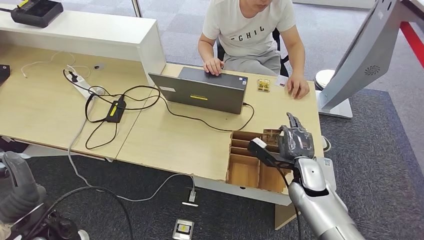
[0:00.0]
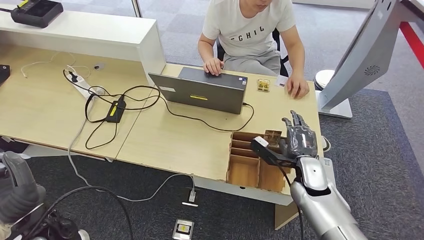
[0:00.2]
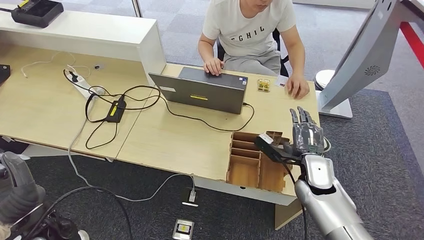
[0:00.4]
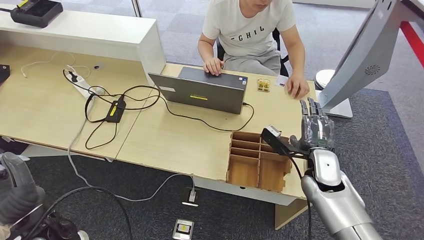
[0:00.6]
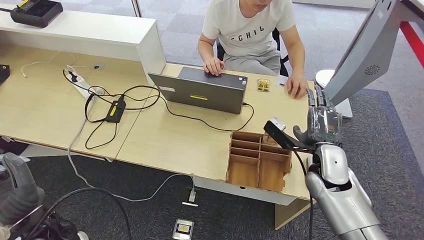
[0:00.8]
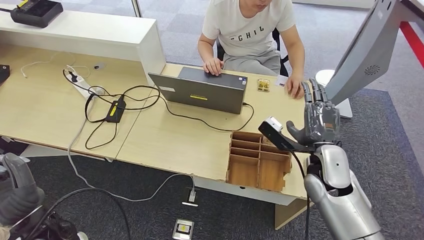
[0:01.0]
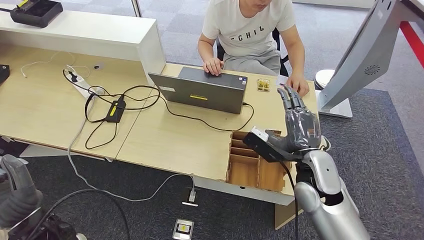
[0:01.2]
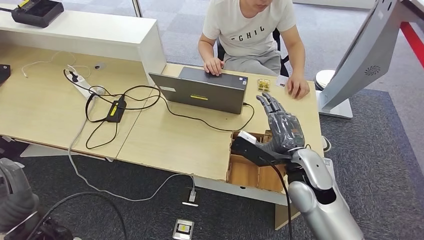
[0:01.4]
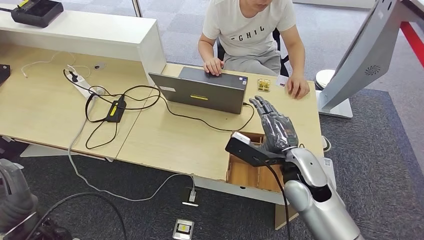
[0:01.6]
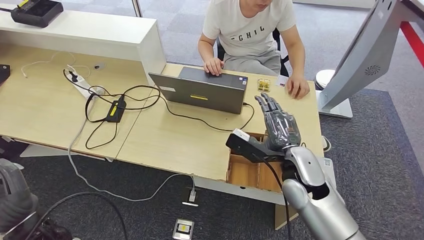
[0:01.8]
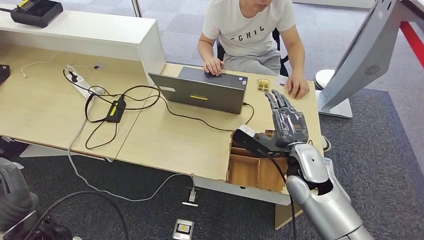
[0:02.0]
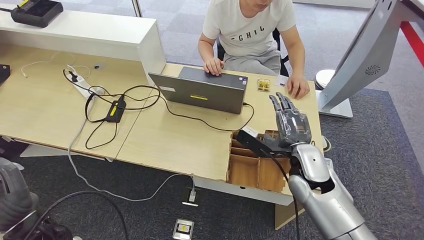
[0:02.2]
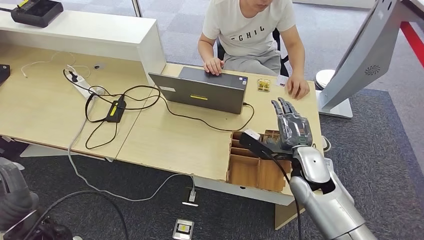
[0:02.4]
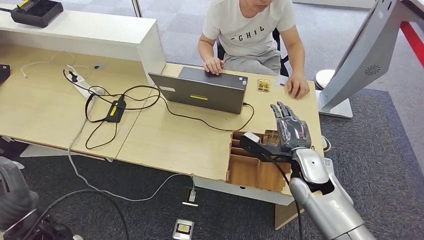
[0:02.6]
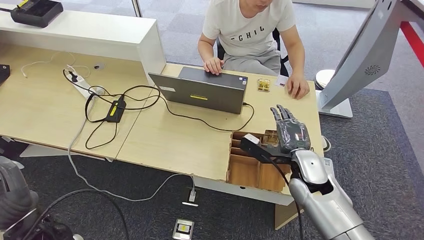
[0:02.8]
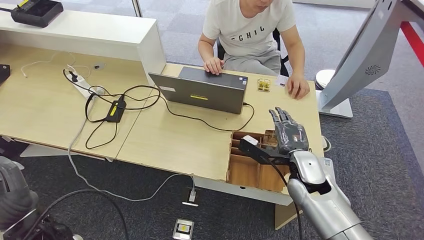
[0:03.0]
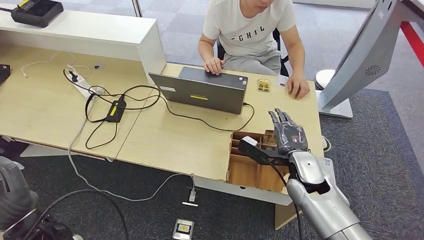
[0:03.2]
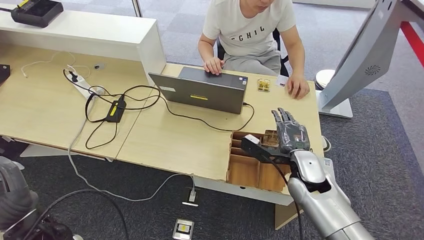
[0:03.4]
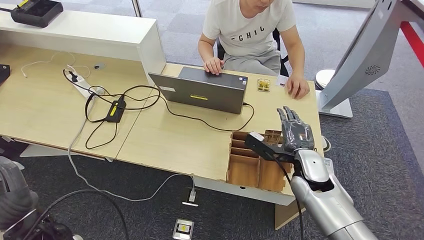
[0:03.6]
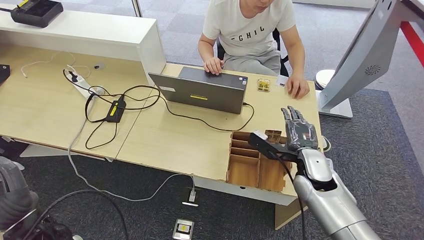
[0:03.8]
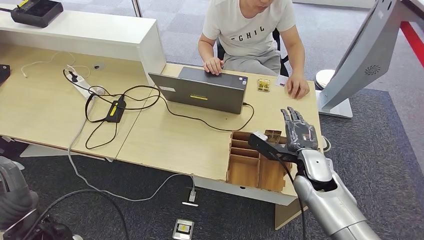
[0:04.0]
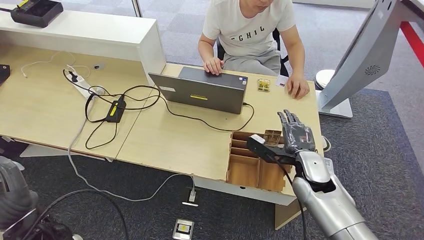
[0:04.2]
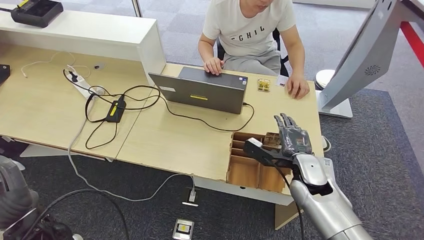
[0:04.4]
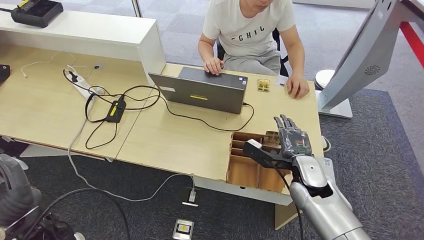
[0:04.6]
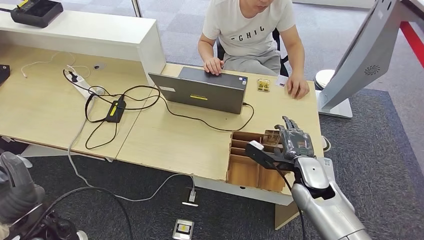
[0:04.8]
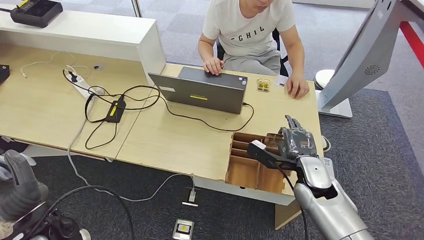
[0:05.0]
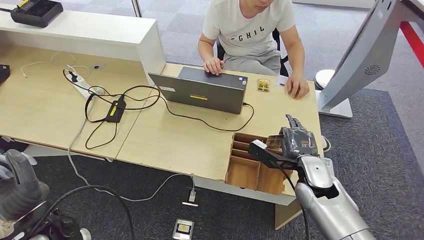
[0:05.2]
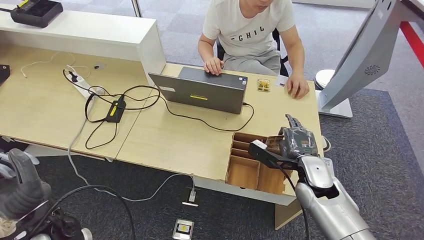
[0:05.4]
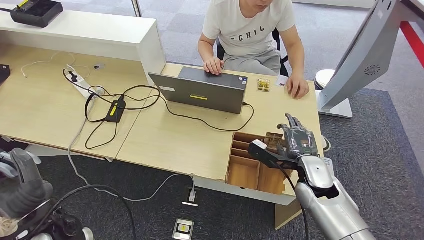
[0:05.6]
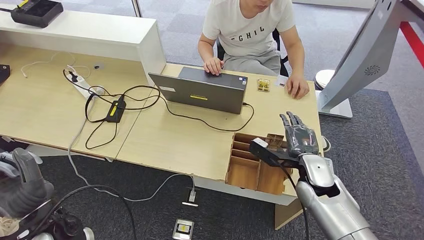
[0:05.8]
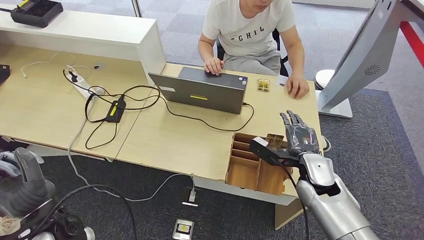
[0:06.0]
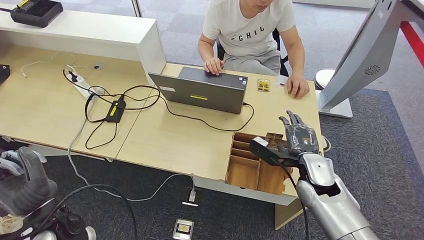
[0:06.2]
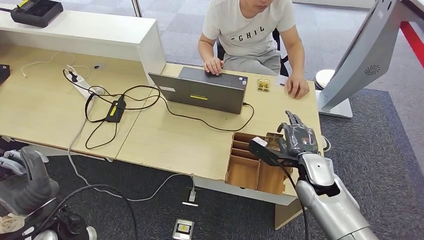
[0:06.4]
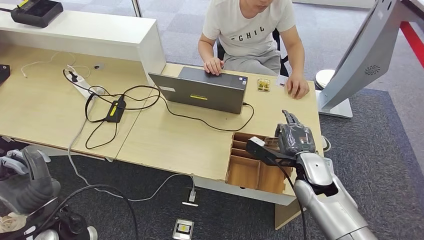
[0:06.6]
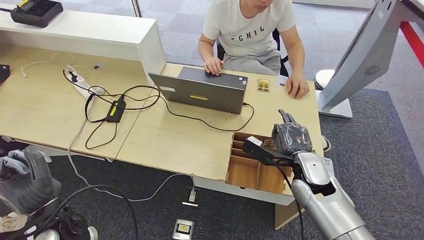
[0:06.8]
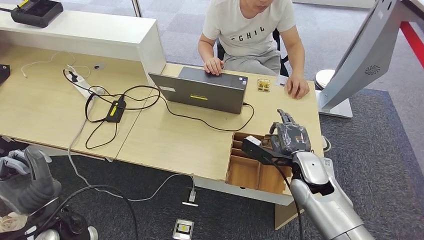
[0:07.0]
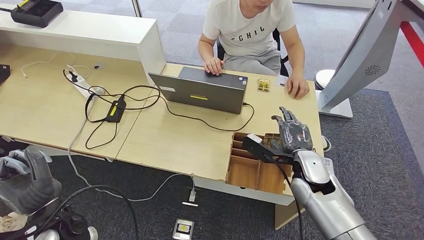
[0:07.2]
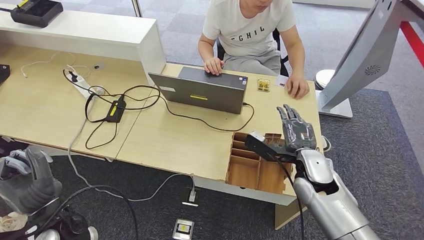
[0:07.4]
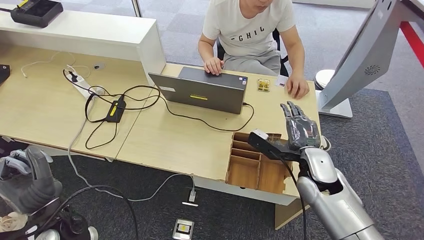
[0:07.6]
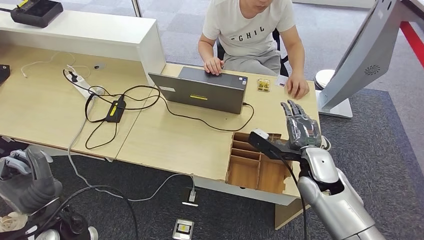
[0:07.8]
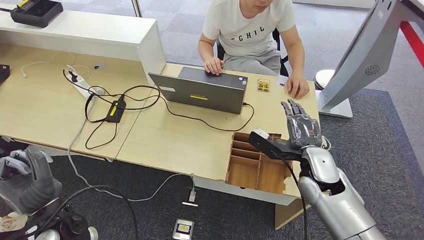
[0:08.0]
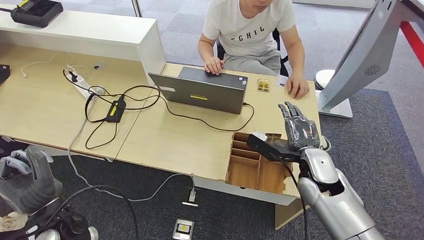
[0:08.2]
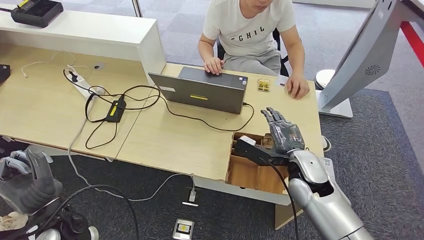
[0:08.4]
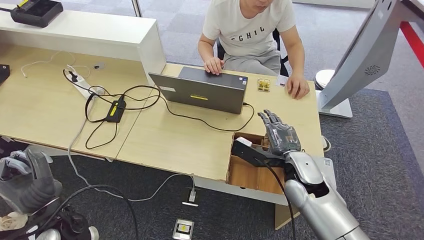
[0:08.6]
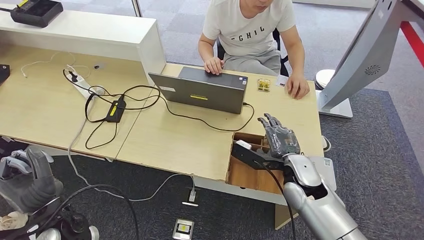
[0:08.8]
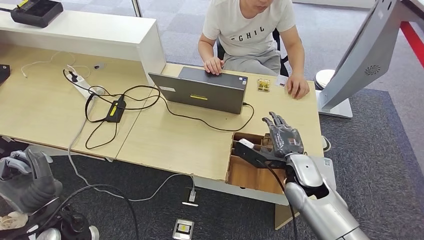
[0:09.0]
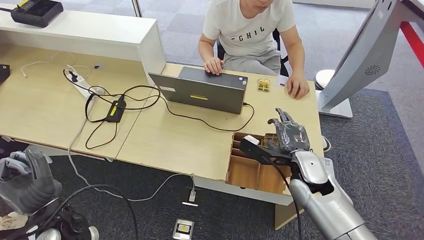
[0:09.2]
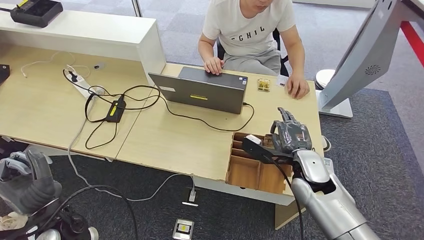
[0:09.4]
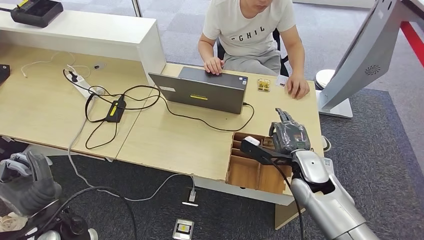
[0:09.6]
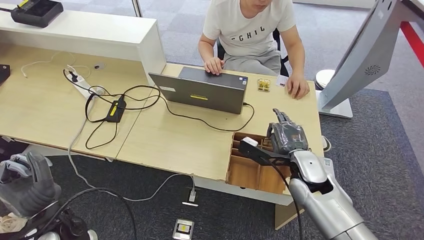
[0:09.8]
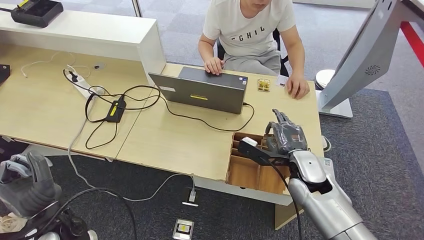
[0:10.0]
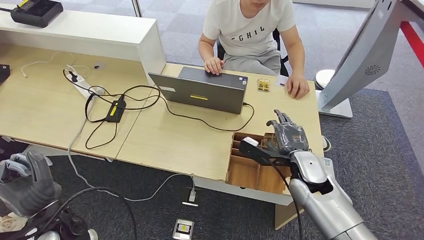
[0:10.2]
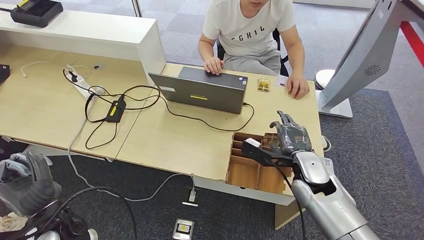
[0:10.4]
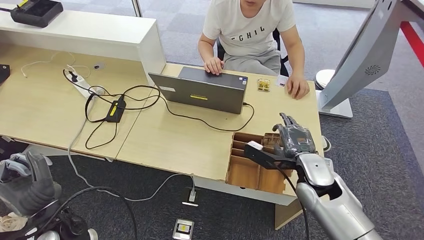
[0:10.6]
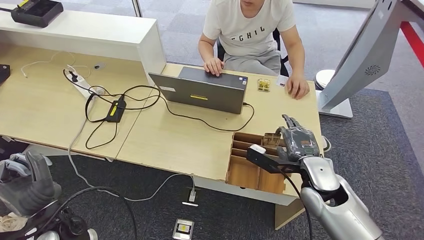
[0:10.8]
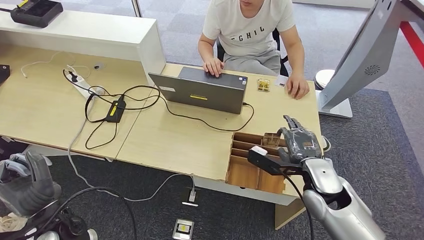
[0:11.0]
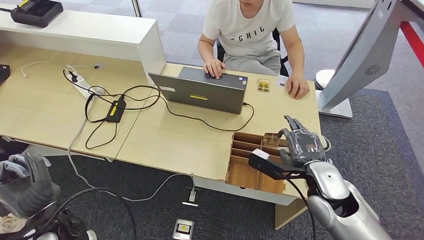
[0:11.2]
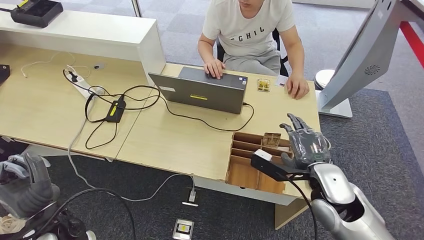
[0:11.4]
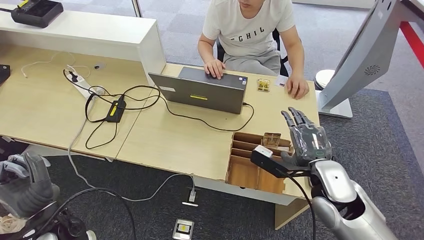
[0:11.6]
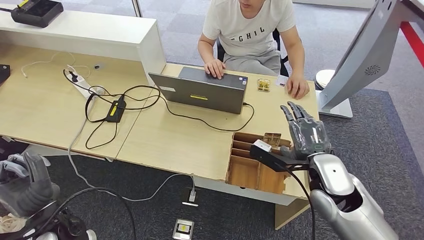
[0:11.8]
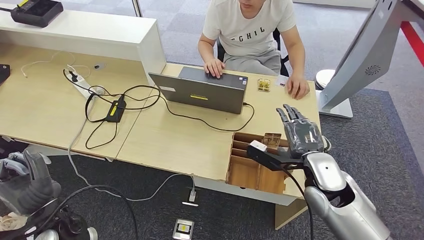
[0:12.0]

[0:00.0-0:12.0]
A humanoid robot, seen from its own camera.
0:00.0 to 0:01.6: The right hand heads upward and to the left, covering about 10 cm.
0:01.6 to 0:03.0: The right hand shifts by about 5 cm.
0:03.0 to 0:10.4: The hands move only a little.

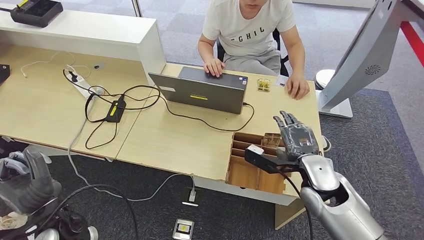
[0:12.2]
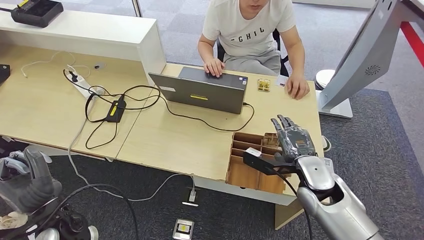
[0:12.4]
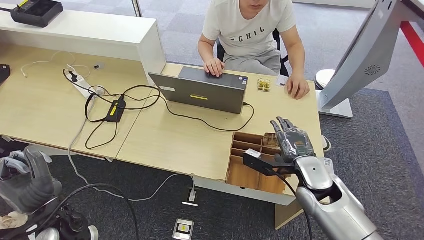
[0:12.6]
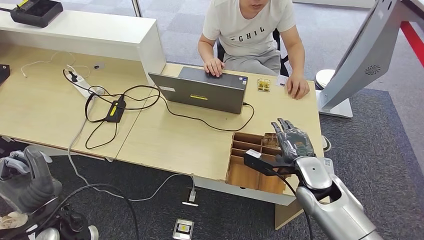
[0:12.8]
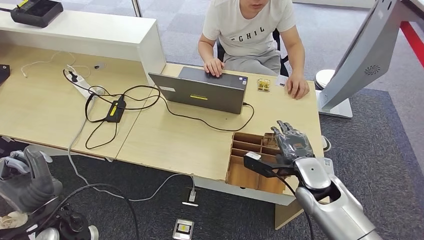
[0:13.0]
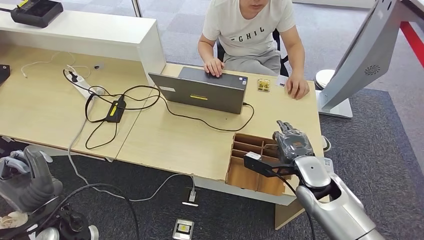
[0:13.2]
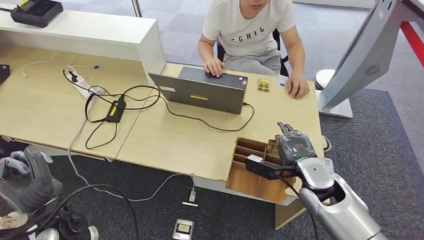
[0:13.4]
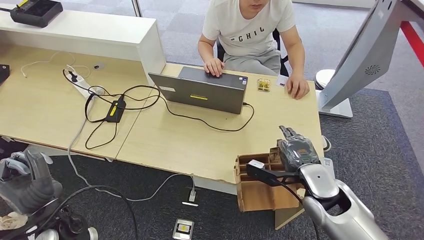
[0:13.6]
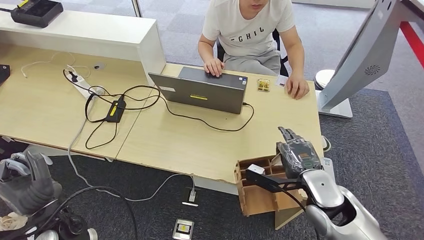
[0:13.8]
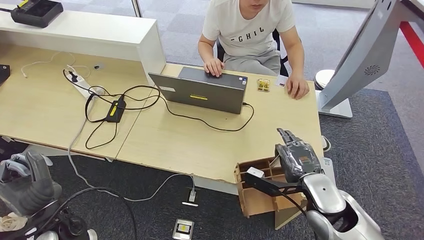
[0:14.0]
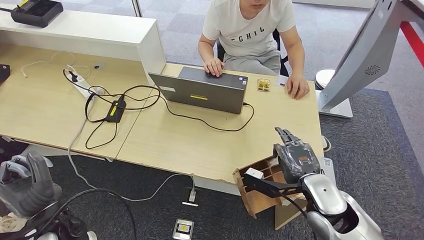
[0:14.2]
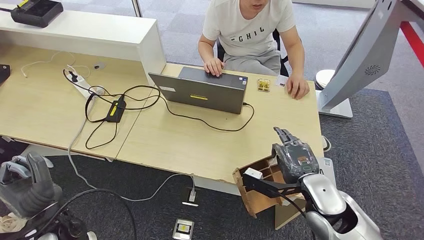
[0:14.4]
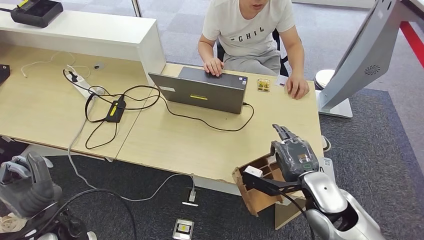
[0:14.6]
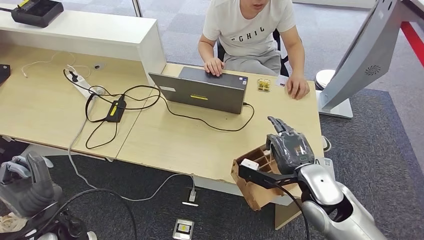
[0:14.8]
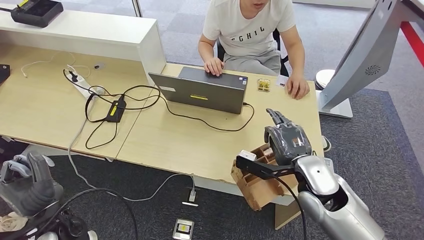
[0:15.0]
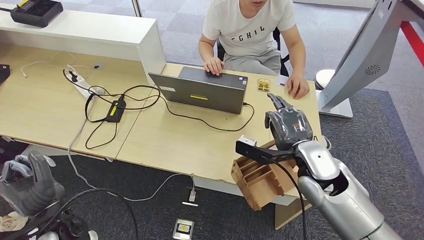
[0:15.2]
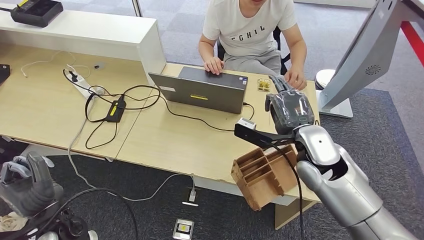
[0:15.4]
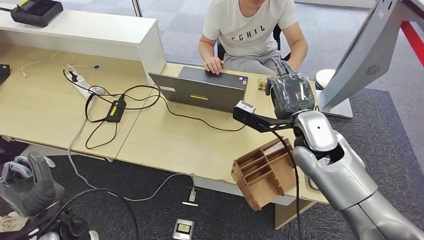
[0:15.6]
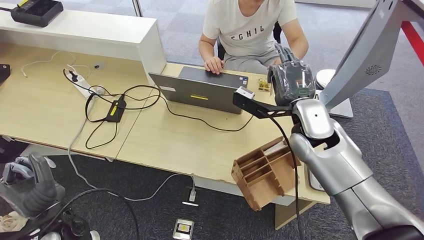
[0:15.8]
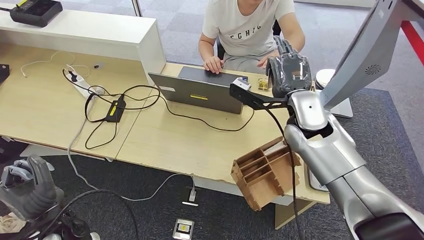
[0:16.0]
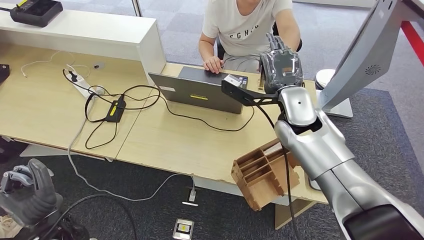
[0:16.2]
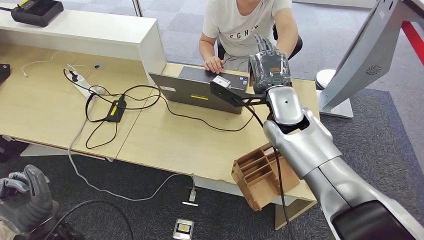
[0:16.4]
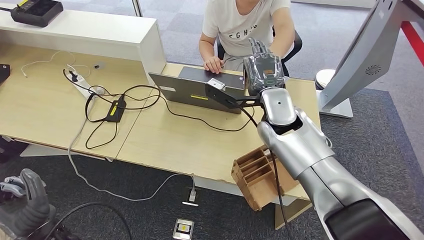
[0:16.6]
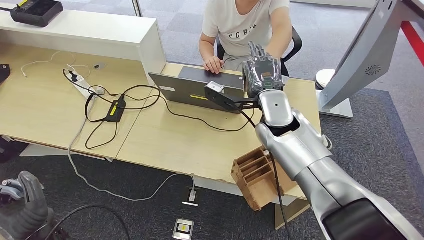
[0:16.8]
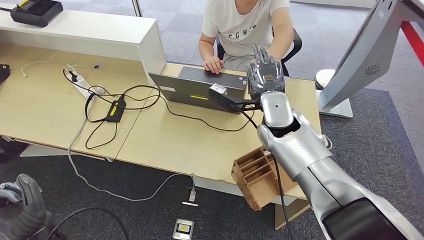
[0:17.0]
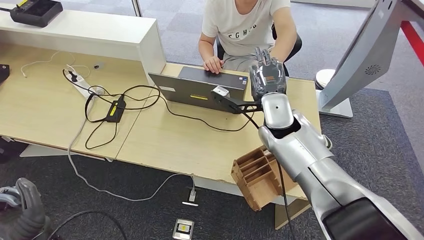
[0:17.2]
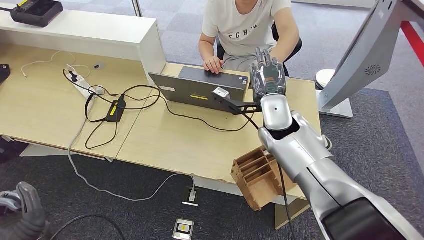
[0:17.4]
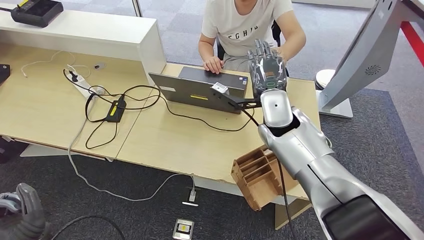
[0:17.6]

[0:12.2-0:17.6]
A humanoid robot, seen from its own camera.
Step, 0:12.2 to 0:16.4: Pick up the room key from the key card box.
0:12.2 to 0:15.0: The hands stay close to where they were, moving slightly.
0:15.0 to 0:16.2: The right hand shifts some 15 cm upward, forward and to the left.
0:16.2 to 0:17.6: The hands stay close to where they were, moving slightly.
